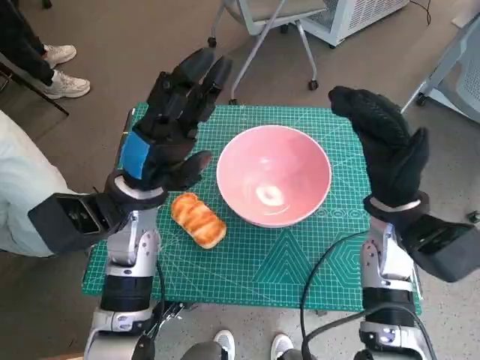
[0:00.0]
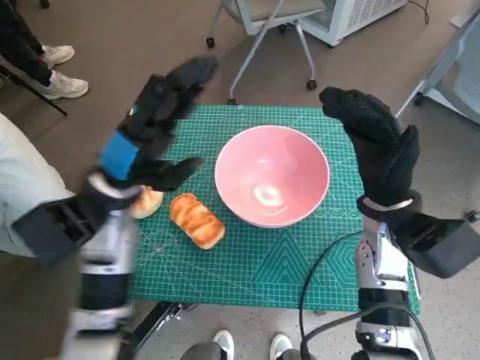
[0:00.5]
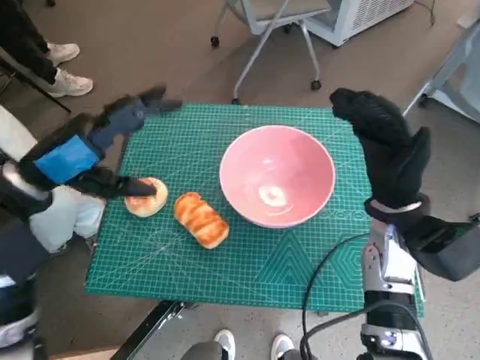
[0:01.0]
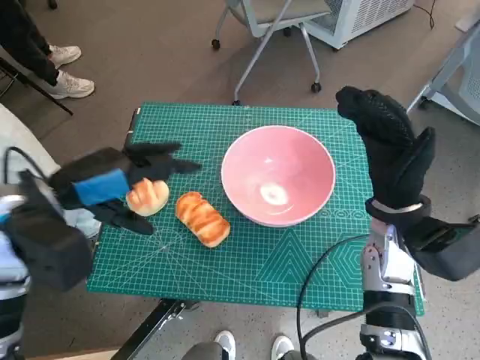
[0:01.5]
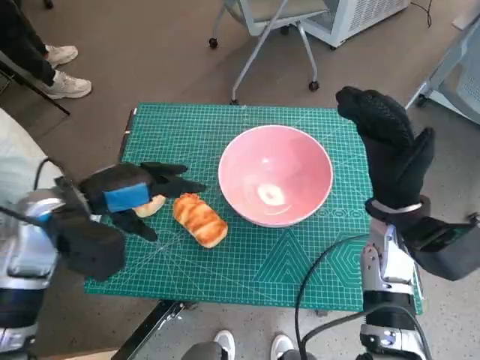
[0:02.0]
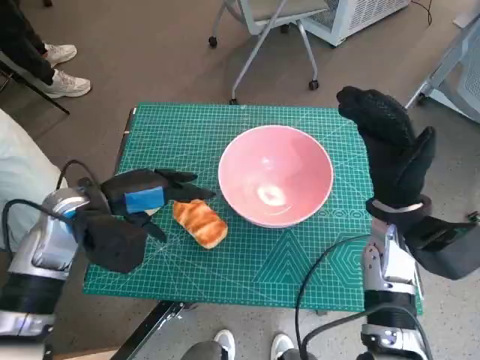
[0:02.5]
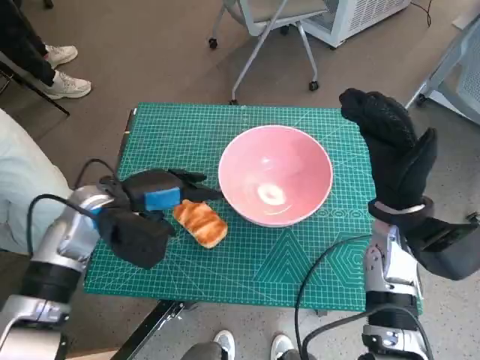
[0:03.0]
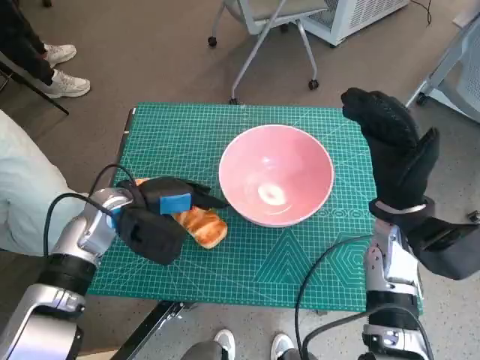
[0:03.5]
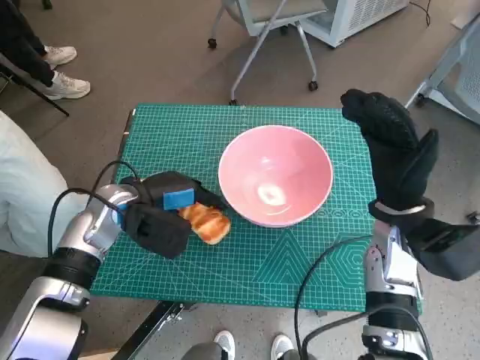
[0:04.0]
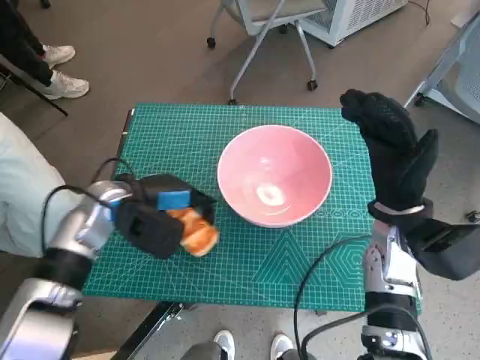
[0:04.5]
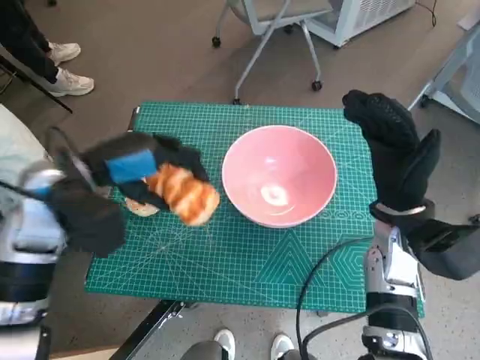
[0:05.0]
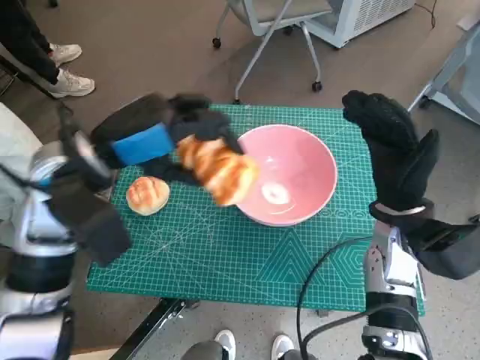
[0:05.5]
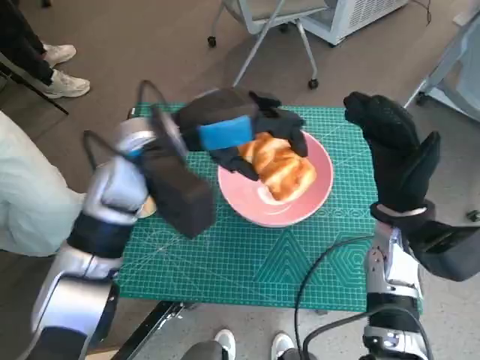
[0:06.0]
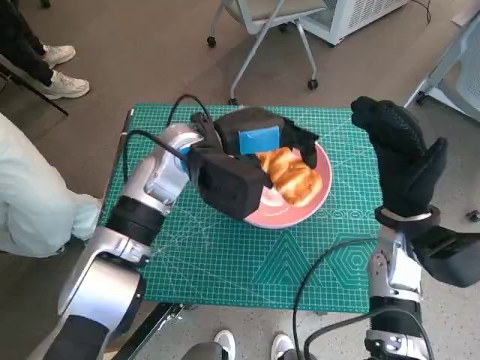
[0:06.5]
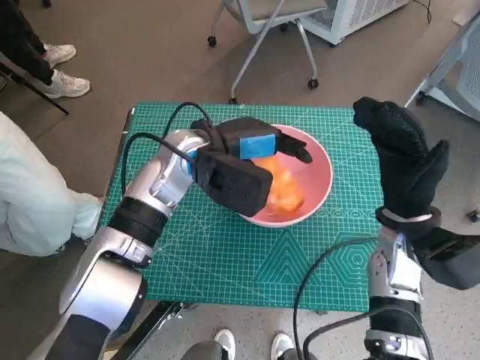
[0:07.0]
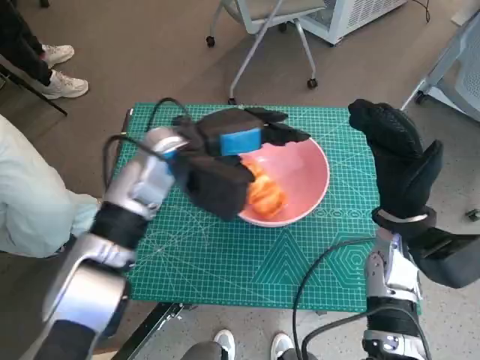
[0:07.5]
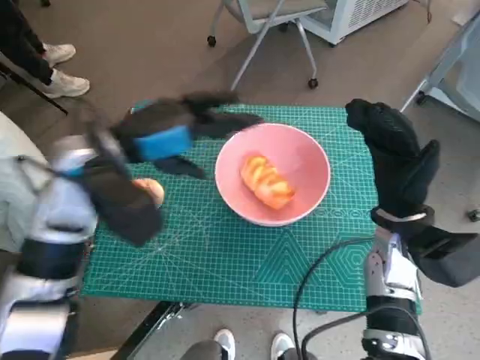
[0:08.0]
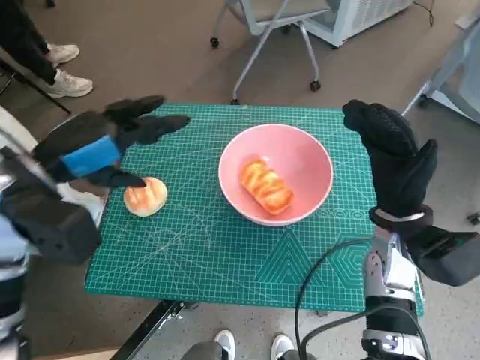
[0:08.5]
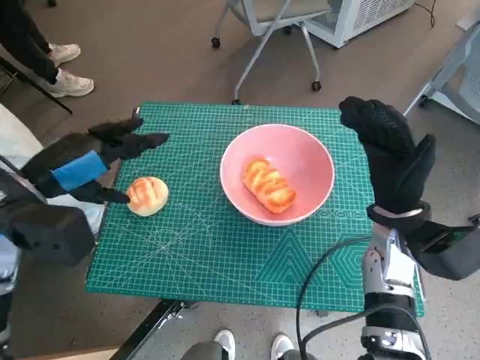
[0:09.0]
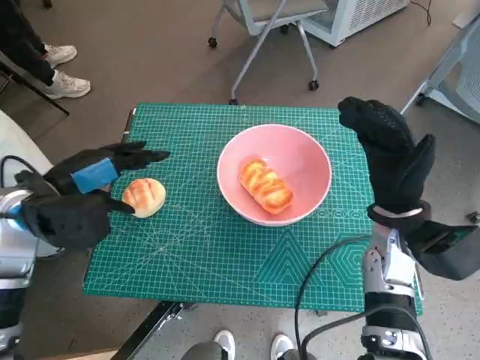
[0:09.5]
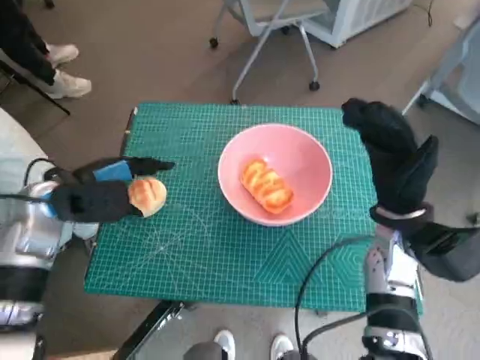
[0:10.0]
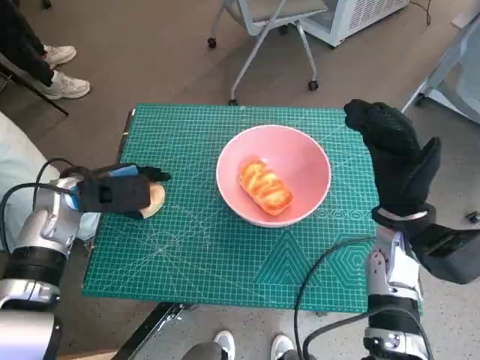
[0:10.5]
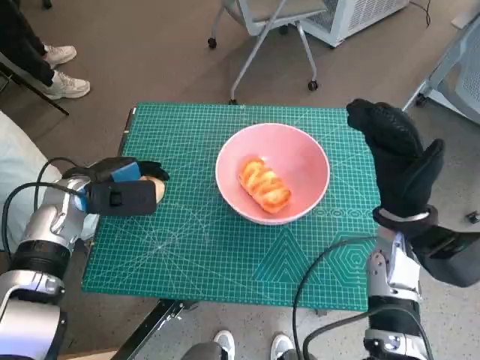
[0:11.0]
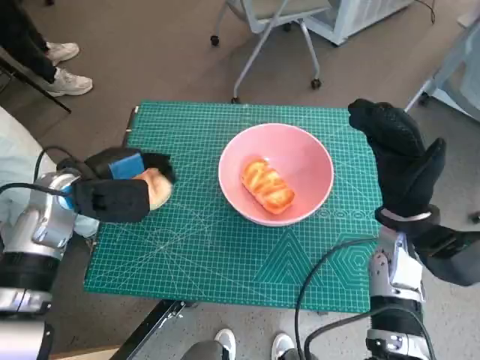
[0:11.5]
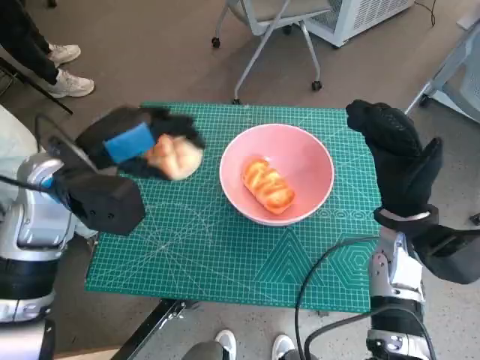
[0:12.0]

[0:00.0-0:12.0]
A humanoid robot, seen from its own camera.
Task of the whole recording: Push the bowl into the center of the table and put the bread into the bowl.
Step, 0:00.0 to 0:04.0: Grasp the long bread with left hand.
Step, 0:04.5 to 0:07.5: Place the long bread in pink bowl with left hand.
Step, 0:08.5 to 0:11.0: Grasp the round bread with left hand.
0:00.0 to 0:02.0: The left hand travels to the left by roughly 10 cm.
0:02.0 to 0:04.0: The left hand travels downward by approximately 5 cm.
0:04.0 to 0:06.0: The left hand moves upward and to the right, approximately 15 cm.
0:06.0 to 0:08.0: The left hand travels to the left by some 5 cm.
0:08.0 to 0:10.0: The left hand travels to the left and downward by roughly 10 cm.
0:10.0 to 0:12.0: The left hand shifts roughly 10 cm upward and to the right.

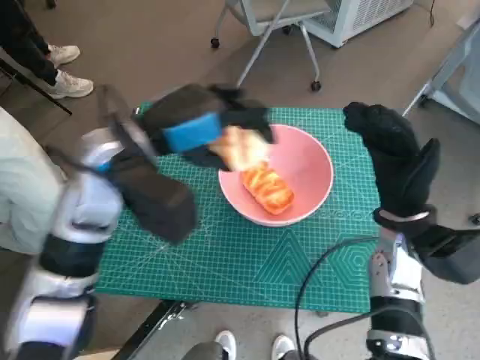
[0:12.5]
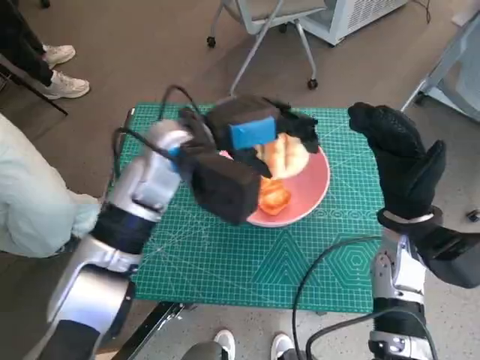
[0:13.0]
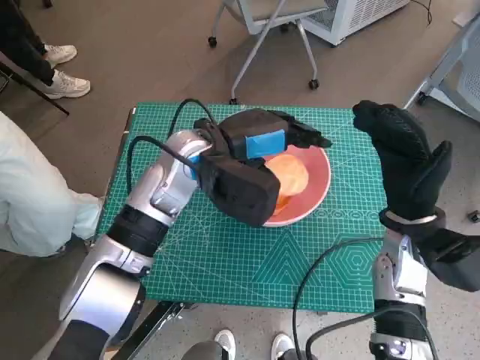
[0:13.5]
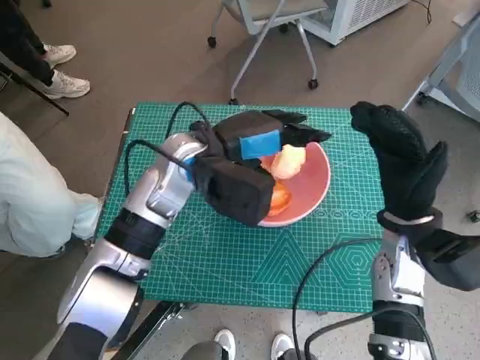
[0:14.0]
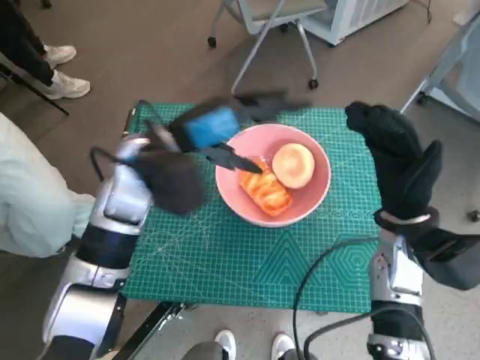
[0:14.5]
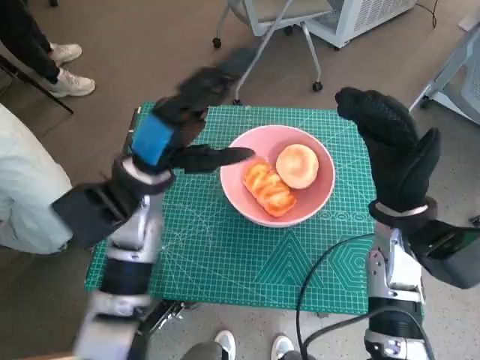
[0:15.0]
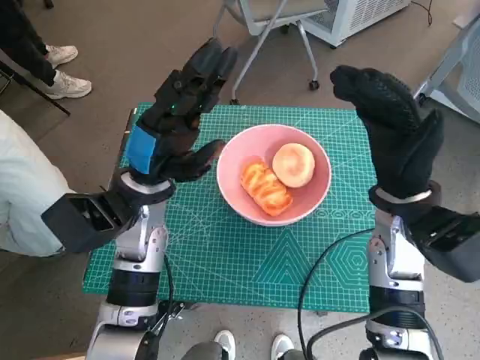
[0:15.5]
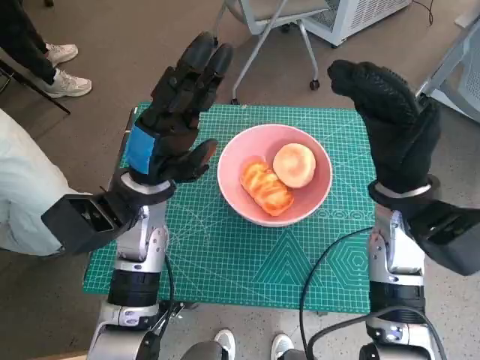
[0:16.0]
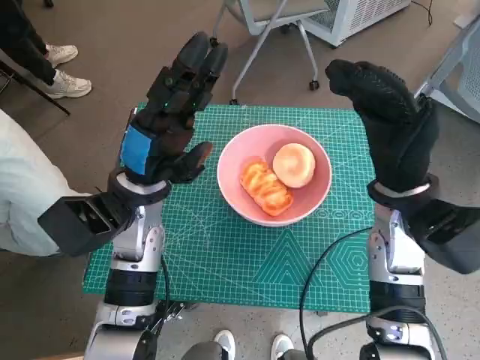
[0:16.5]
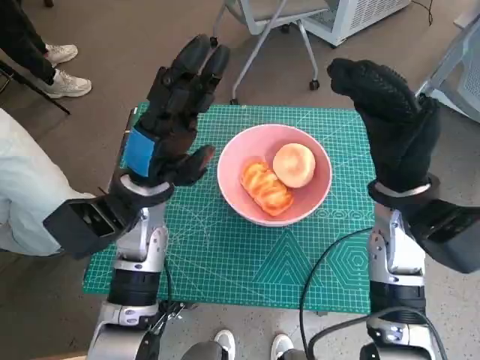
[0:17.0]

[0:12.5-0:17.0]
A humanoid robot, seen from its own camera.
Task of the whole recording: Push the bowl into the center of the table and put the bread into the bowl.
Step, 0:12.5 to 0:14.5: Place the round bread in pink bowl with left hand.
0:14.5 to 0:17.0: The right hand goes some 5 cm upward. Meanwhile the left hand is displaced downward by roughly 5 cm.
